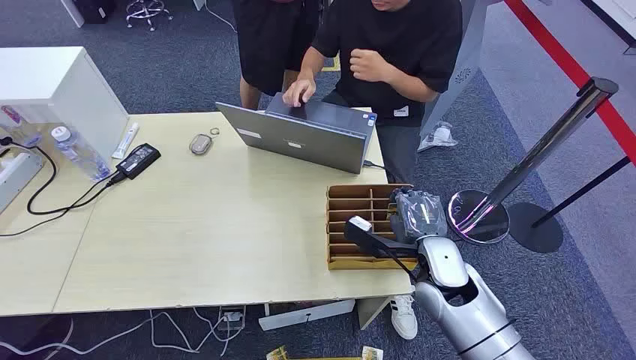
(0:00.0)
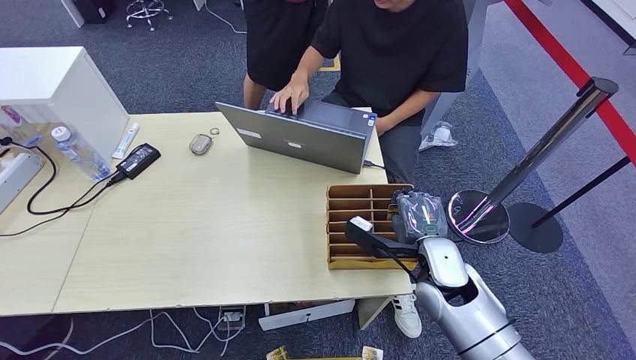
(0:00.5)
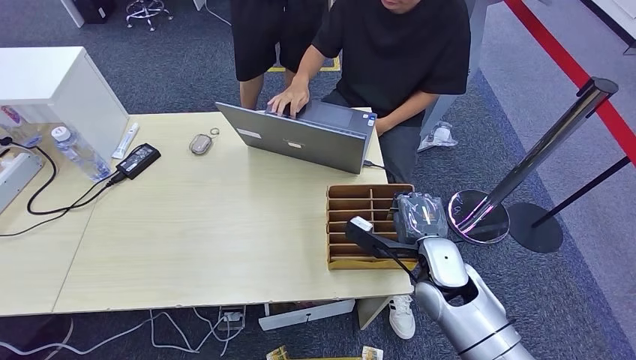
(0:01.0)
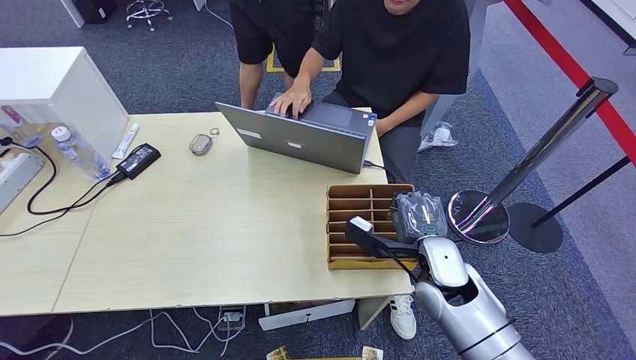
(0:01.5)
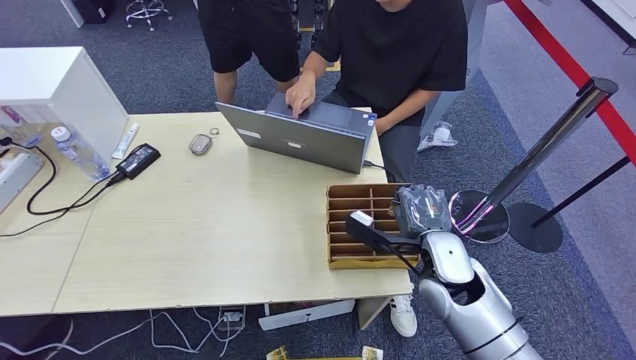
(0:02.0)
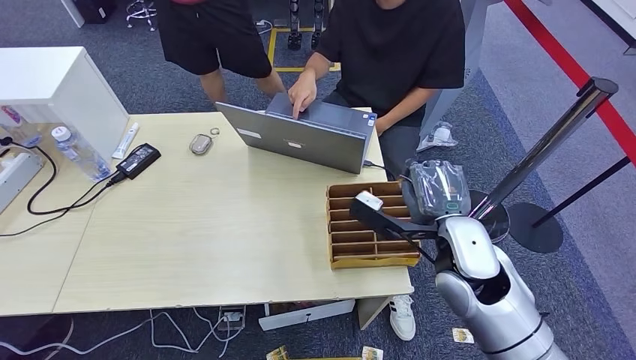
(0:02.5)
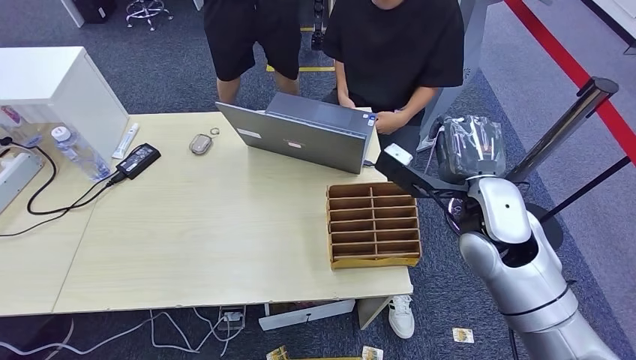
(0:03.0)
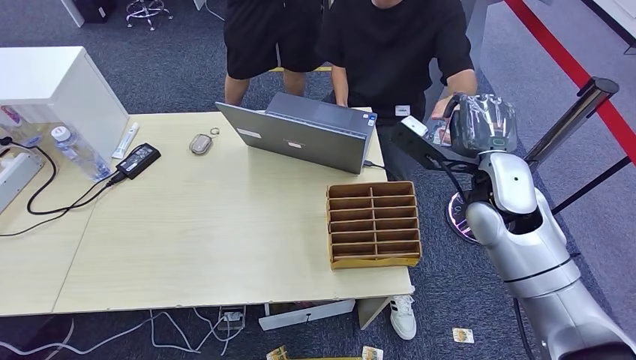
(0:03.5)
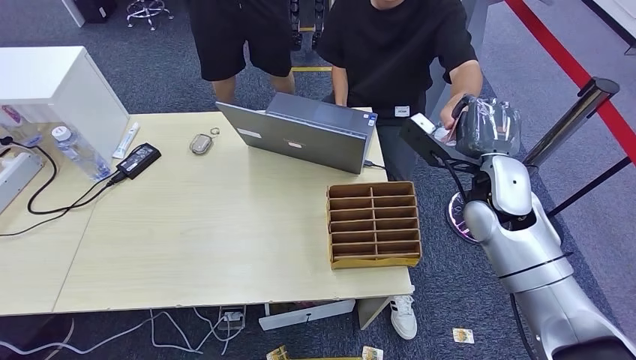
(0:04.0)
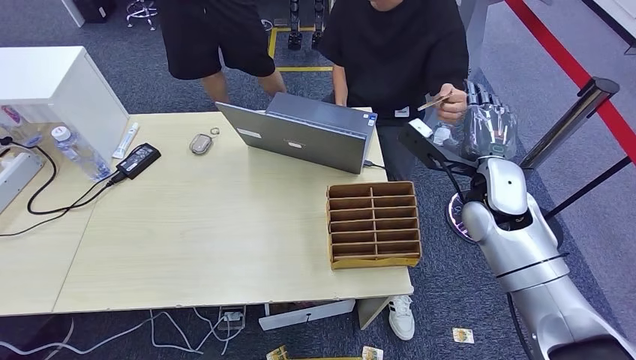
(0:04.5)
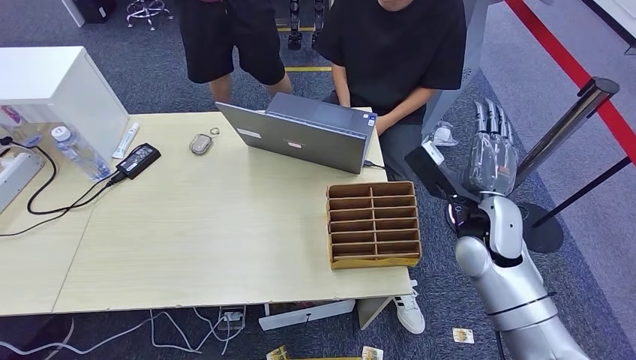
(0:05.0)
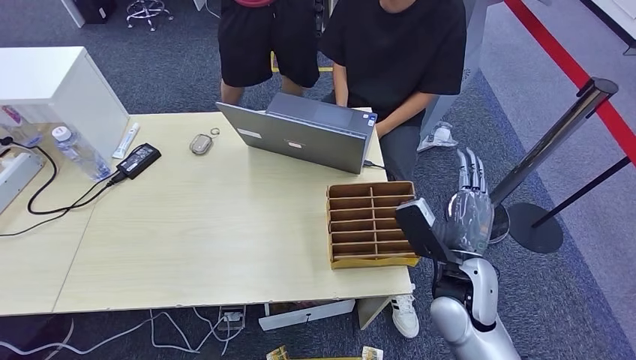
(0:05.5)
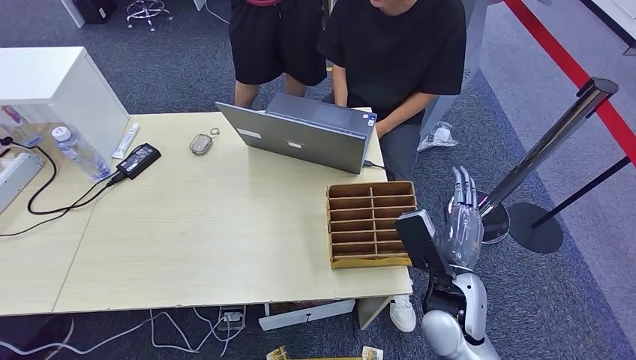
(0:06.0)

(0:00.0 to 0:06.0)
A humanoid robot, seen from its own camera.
Step, 0:00.0 - 0:02.0: Pick up the key card from the card box.
Step, 0:02.5 - 0:06.0: Hand the key card to the target.
0:02.0 - 0:04.0: The right hand is displaced upward, forward and to the right by some 15 cm.
0:04.0 - 0:06.0: The right hand travels backward, downward and to the left by roughly 20 cm.
